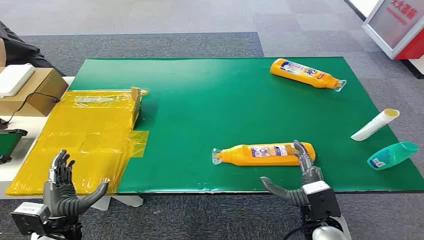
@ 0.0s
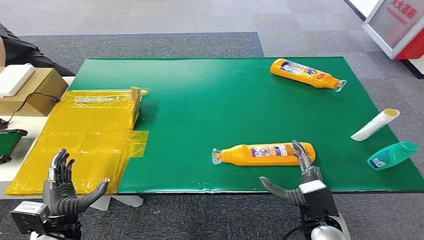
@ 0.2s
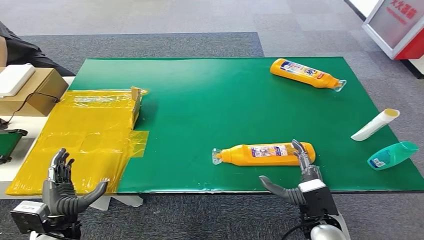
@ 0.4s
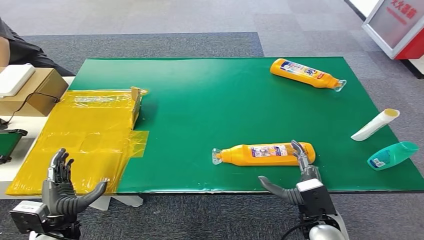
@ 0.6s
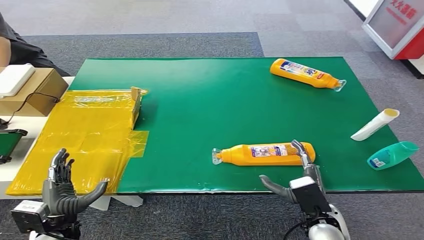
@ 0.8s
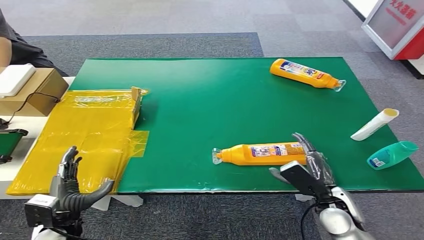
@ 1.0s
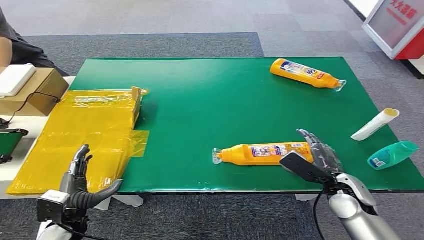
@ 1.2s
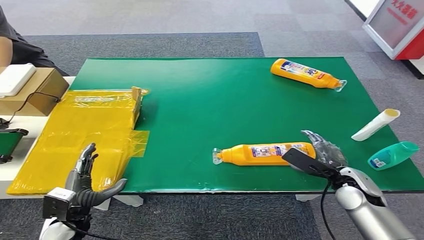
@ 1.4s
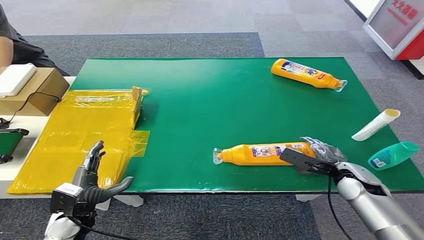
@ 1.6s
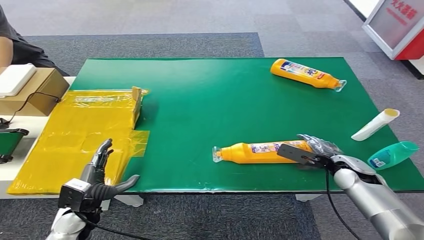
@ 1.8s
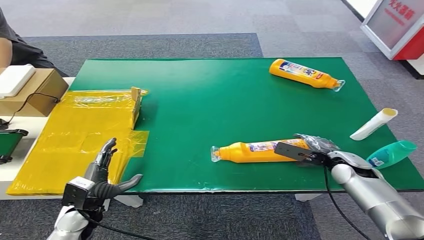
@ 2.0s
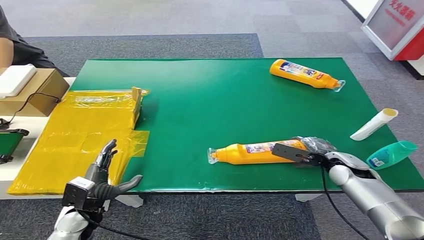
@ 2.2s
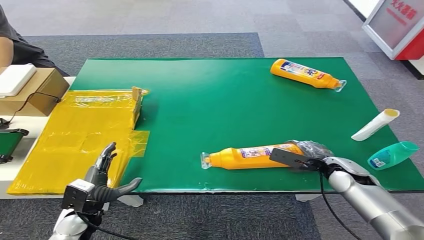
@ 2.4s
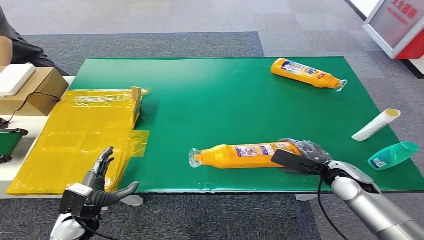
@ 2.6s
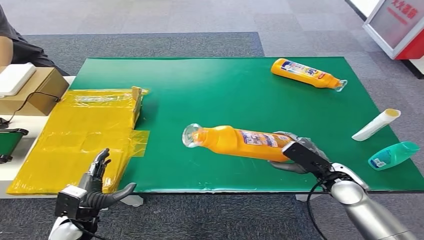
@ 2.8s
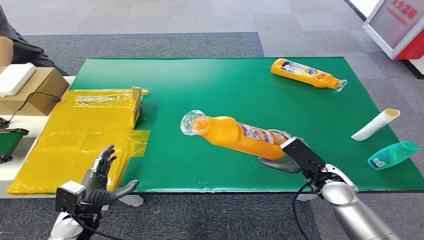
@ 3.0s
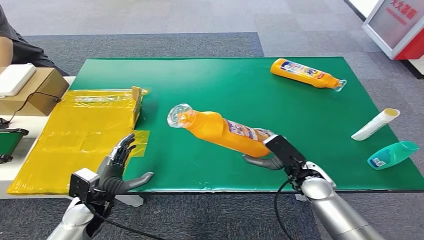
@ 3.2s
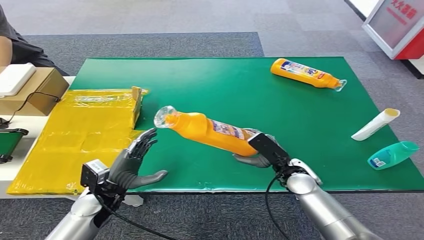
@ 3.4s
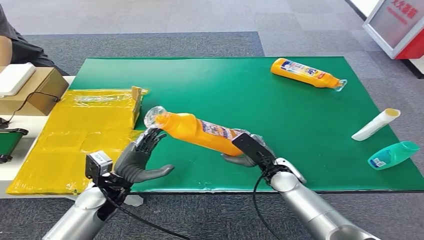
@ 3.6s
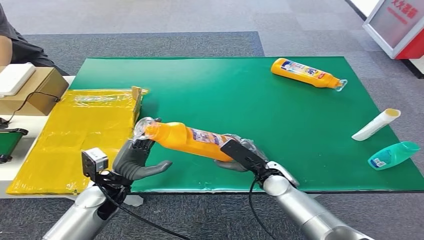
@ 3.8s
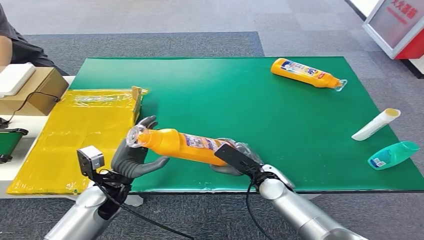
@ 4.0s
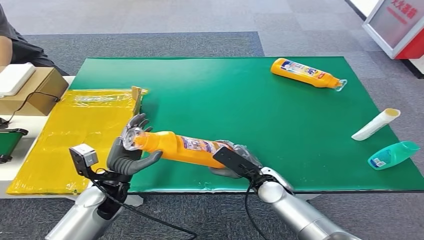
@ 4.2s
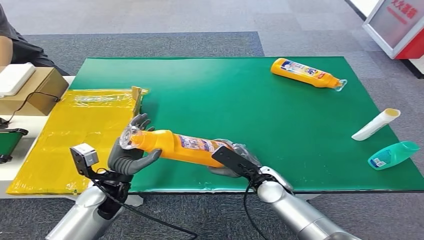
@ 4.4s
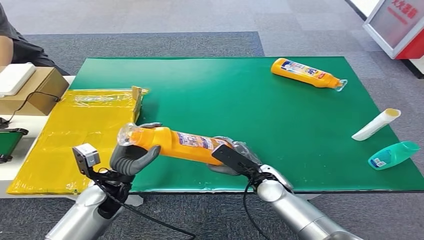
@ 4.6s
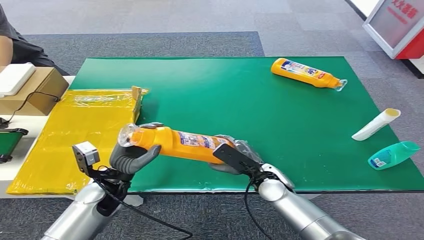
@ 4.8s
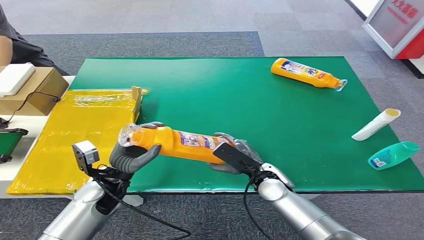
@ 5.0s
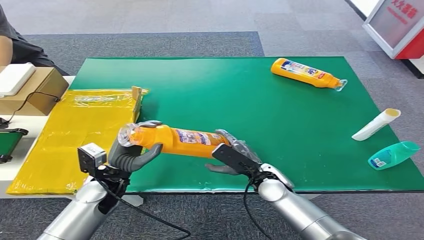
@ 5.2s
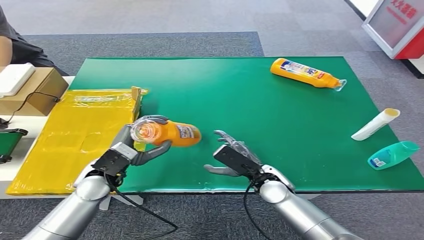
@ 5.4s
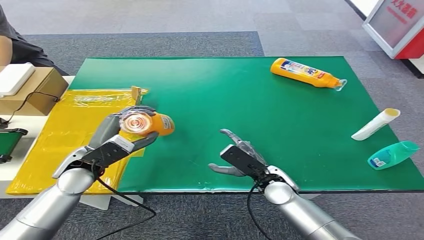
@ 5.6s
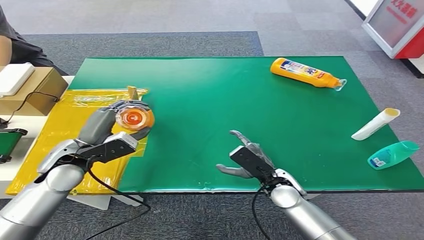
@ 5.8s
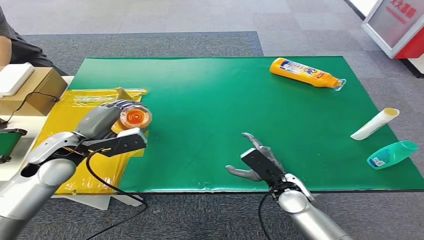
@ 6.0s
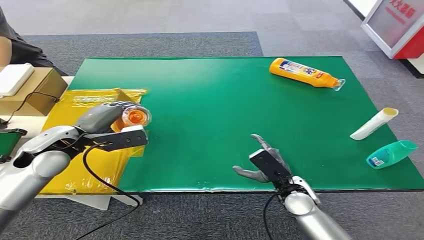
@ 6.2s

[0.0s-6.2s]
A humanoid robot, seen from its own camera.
Step, 0.0s to 3.0s: Pick up the bottle from the table.
Step, 3.2s to 6.0s: Turn the bottle to the front side.
1.6s to 3.2s: The right hand heads to the left, covering roughly 10 cm.
3.2s to 4.6s: The right hand travels to the left by about 10 cm. The left hand goes some 5 cm to the right.
